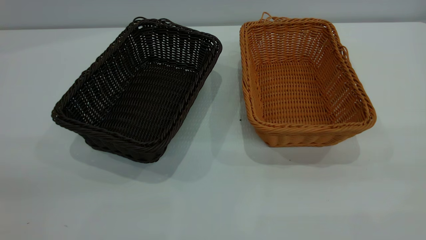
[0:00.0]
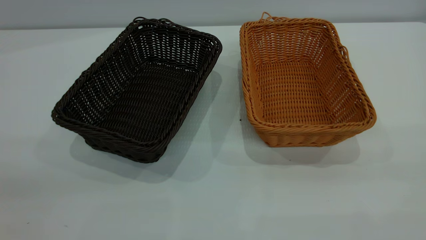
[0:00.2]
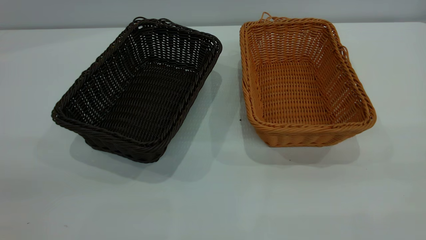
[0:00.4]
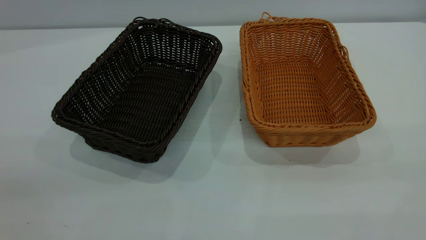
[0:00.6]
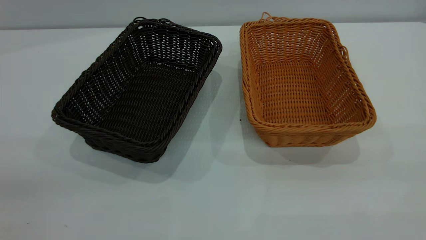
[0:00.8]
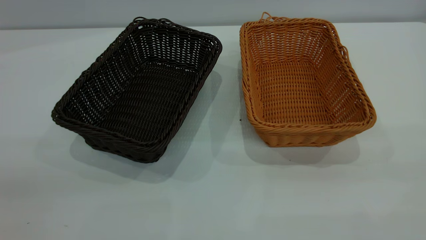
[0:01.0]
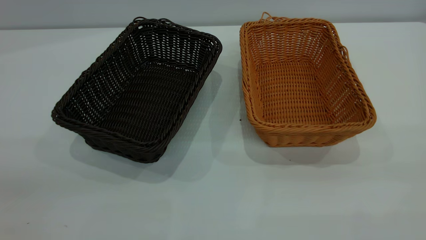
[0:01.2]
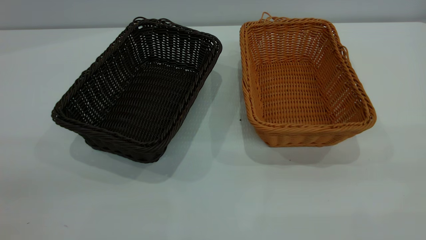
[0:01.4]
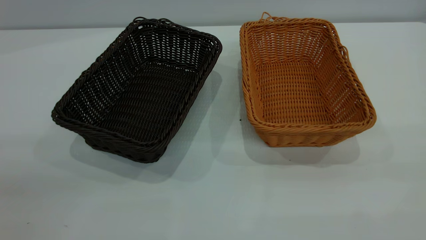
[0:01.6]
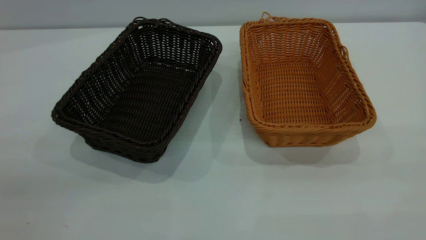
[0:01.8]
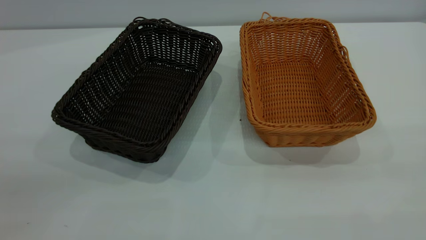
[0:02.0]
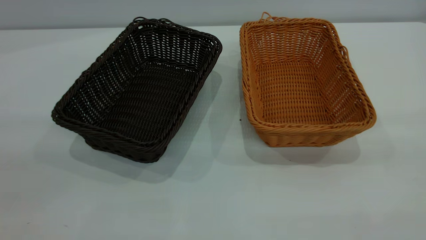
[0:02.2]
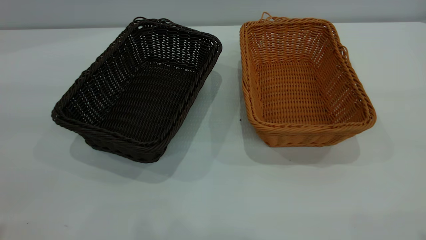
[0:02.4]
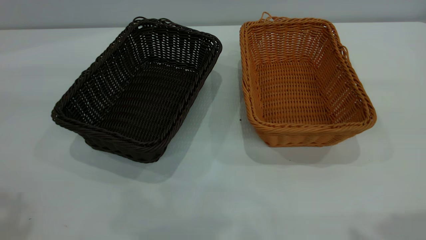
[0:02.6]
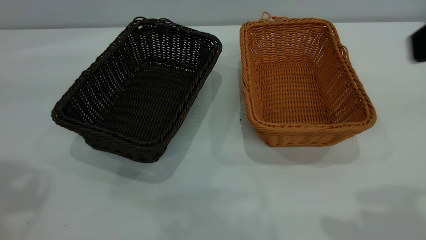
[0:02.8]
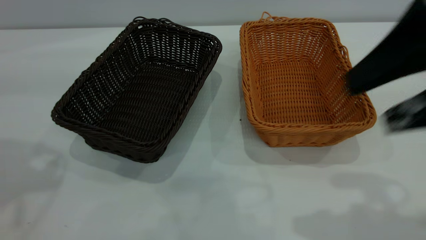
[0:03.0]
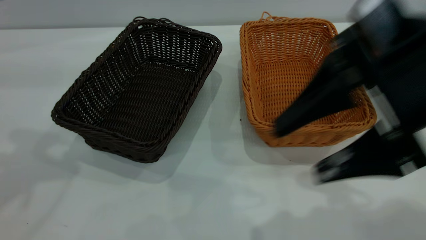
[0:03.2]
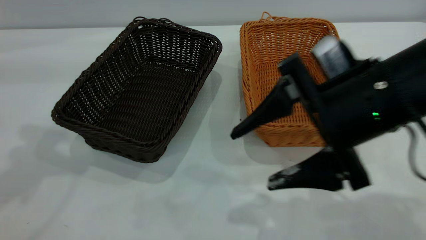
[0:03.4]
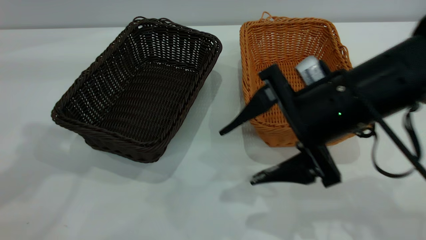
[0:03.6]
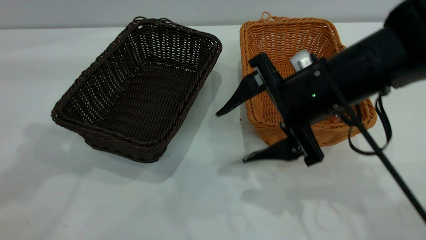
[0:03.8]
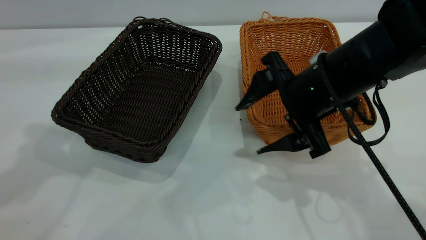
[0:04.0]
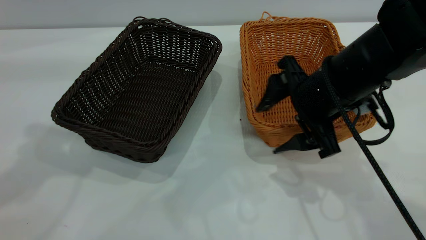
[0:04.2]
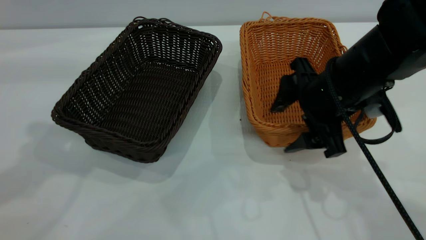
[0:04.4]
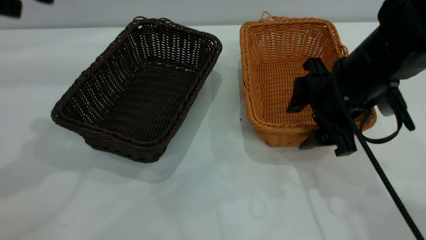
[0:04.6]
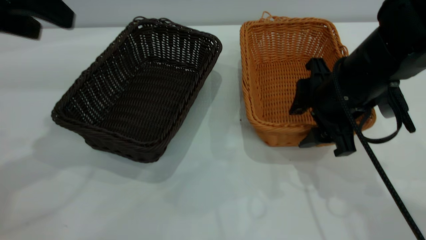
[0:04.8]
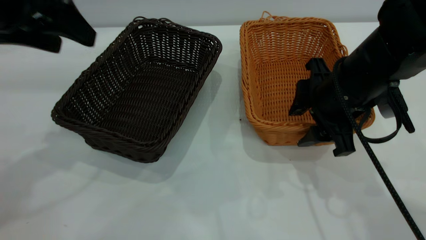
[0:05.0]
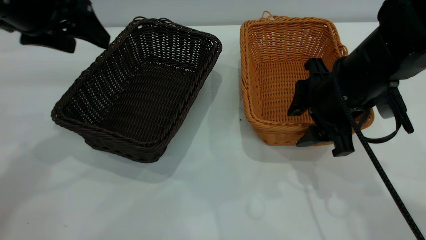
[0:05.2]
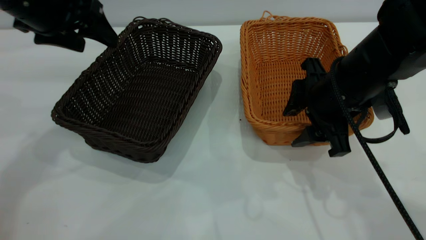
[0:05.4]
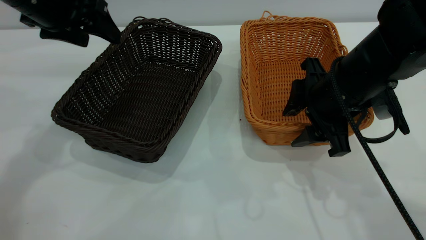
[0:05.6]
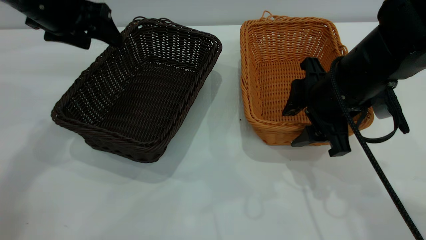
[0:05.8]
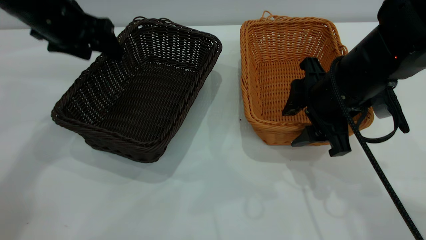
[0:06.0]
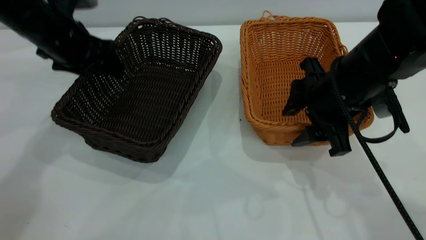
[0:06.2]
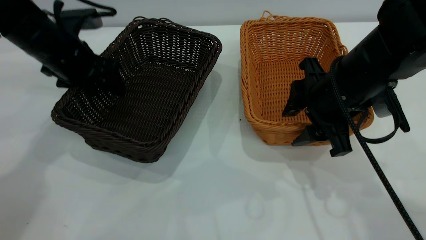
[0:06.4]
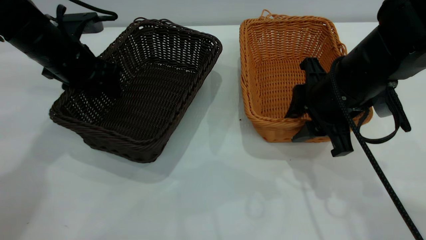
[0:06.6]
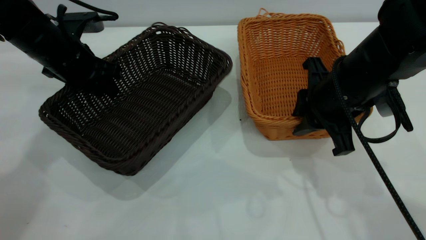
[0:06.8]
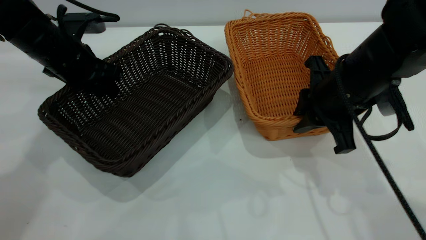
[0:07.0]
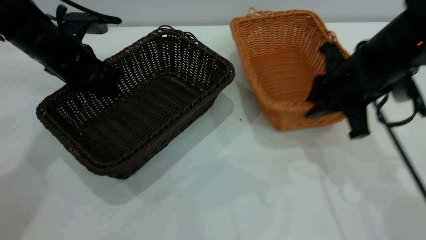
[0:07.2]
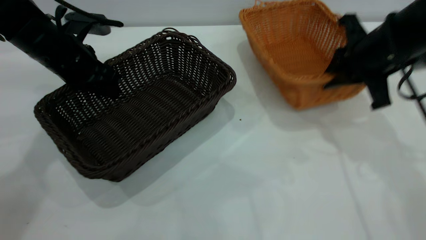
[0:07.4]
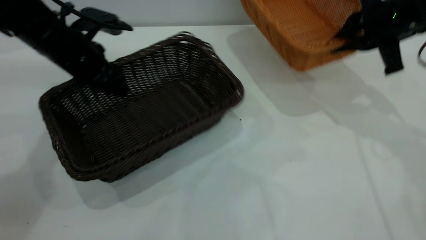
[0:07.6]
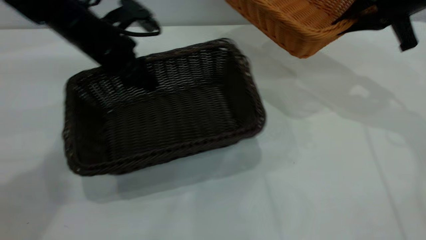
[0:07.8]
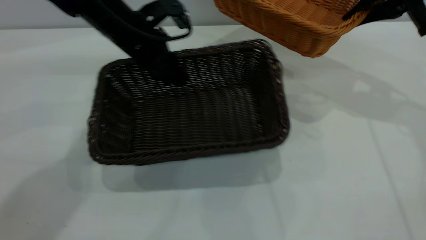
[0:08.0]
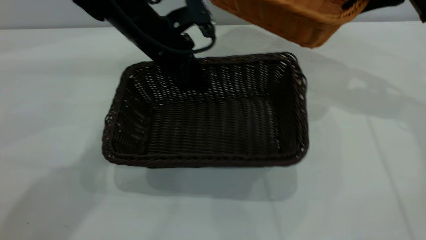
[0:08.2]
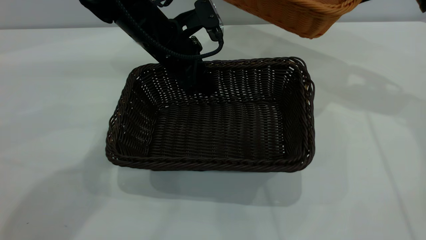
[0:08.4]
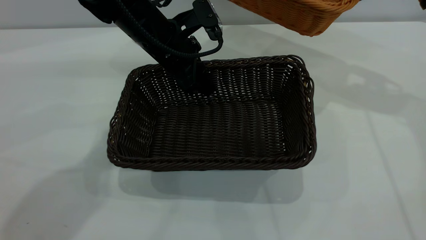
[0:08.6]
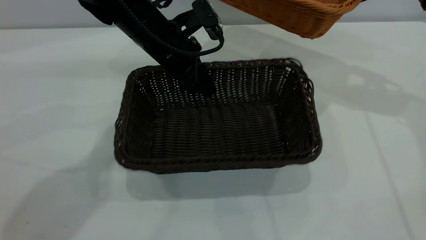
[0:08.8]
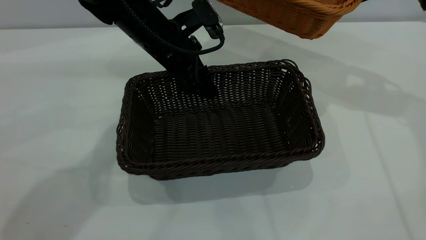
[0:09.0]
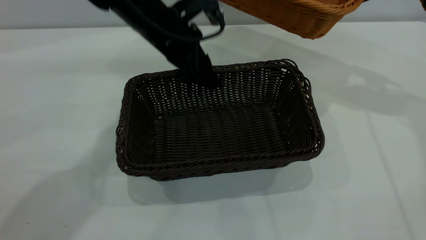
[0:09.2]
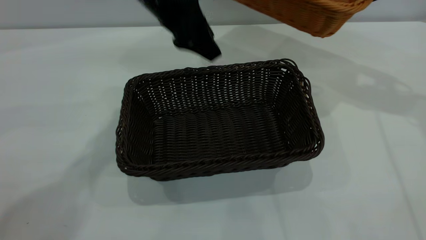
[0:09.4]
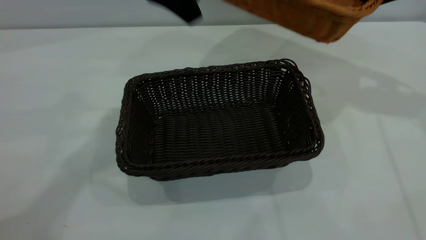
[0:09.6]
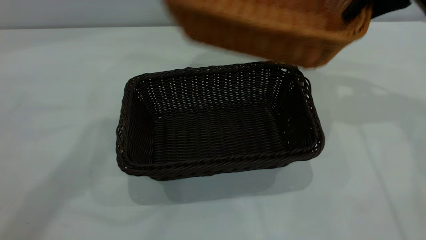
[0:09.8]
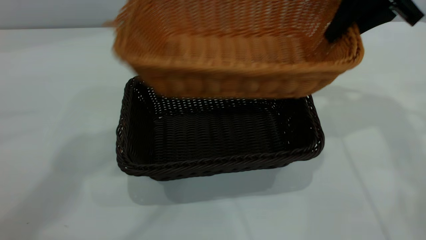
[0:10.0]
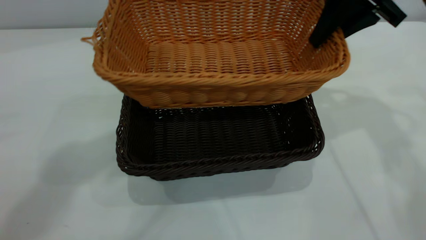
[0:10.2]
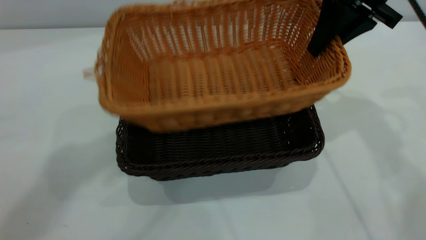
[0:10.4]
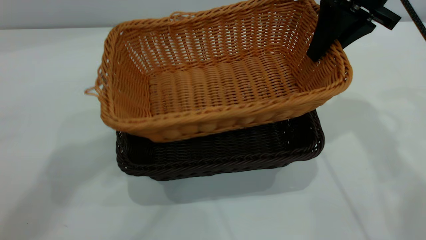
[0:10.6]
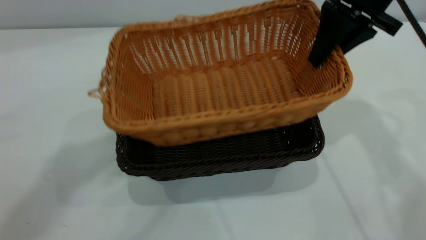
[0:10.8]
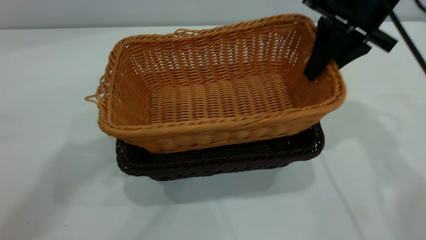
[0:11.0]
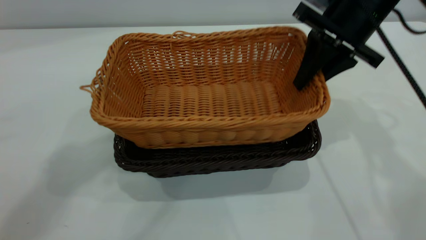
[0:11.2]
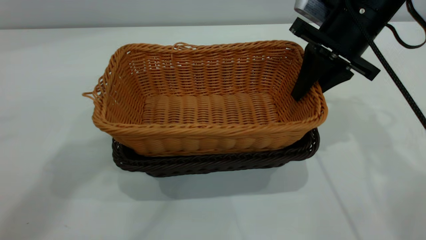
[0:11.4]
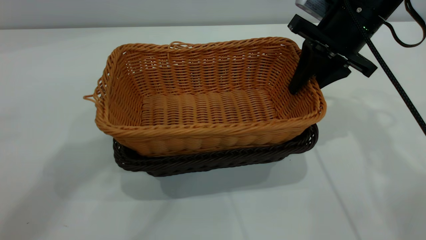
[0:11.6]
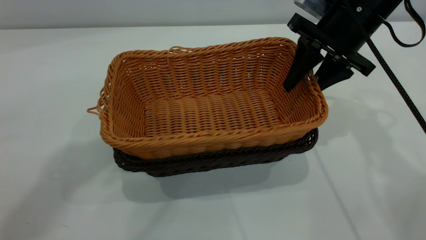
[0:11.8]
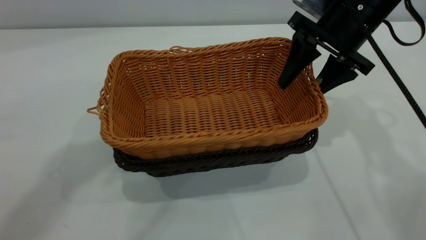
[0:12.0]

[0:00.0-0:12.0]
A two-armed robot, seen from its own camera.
Task of the whole recording: the left gripper grasp the black basket and place it in the center of the table, the right gripper grasp the brown basket and place it inside the black one.
Step, 0:00.0 to 0:07.8: Pick up the light basket with the right gripper.
Step, 0:08.0 to 0:09.4: Move the dark basket to the center of view.
0:00.0 to 0:01.6: Neither gripper changes place.
0:01.6 to 0:03.0: The right gripper moves forward and downward, approximately 20 cm, and opens up.
0:03.0 to 0:04.4: The right gripper goes some 15 cm downward and forward.
0:04.4 to 0:06.0: The left gripper moves downward and forward, approximately 20 cm.
0:06.0 to 0:07.6: The left gripper changes place by some 5 cm, and closes; the right gripper travels to the right, forward and upward by about 15 cm, and closes.
0:07.6 to 0:09.0: The left gripper moves to the right, approximately 15 cm, and opens its fingers, while the right gripper shifts approximately 5 cm upward.
0:09.0 to 0:10.4: The left gripper is displaced upward by roughly 35 cm; the right gripper is displaced to the left by some 10 cm.
0:10.4 to 0:12.0: The right gripper shifts about 5 cm downward, and opens its fingers.

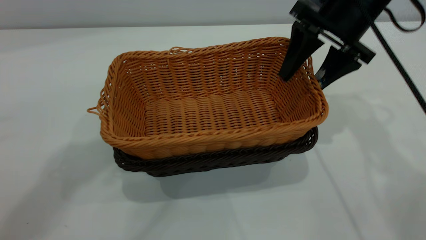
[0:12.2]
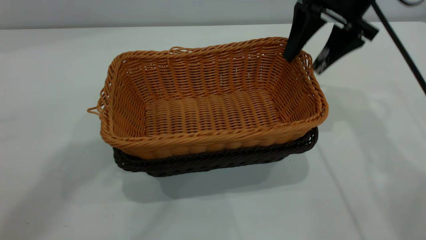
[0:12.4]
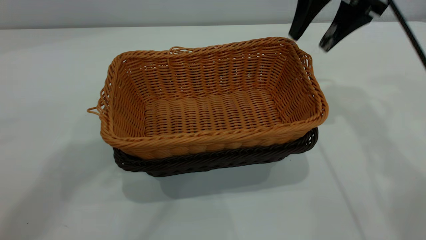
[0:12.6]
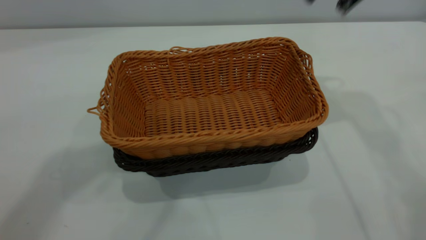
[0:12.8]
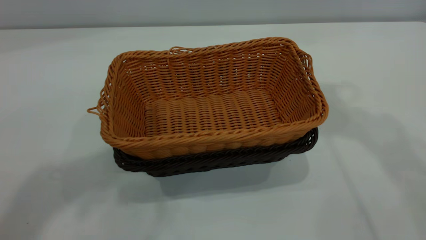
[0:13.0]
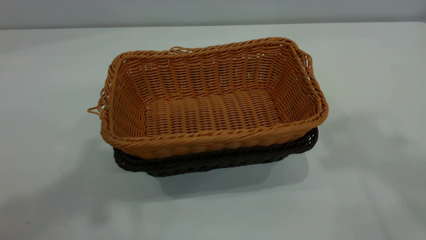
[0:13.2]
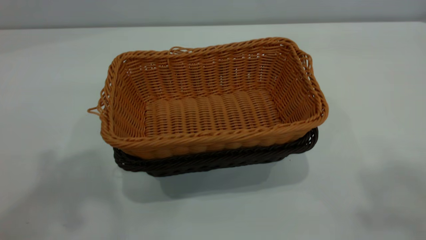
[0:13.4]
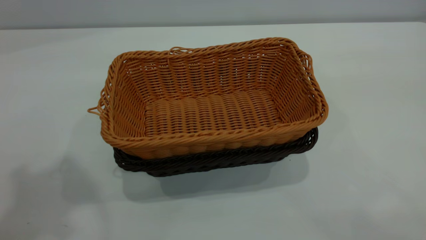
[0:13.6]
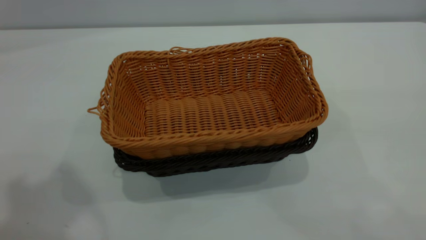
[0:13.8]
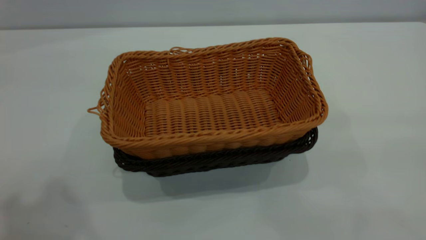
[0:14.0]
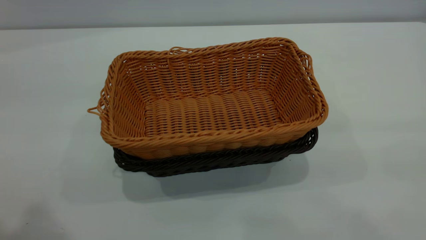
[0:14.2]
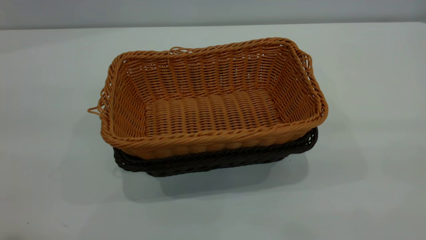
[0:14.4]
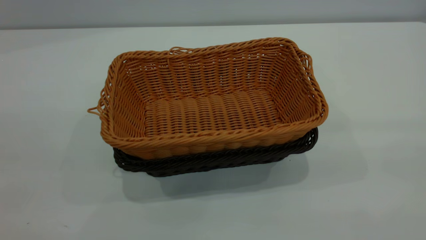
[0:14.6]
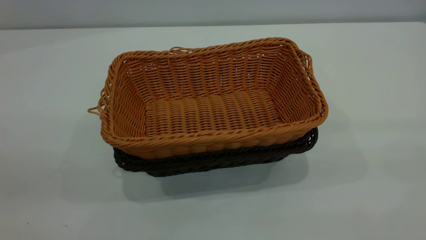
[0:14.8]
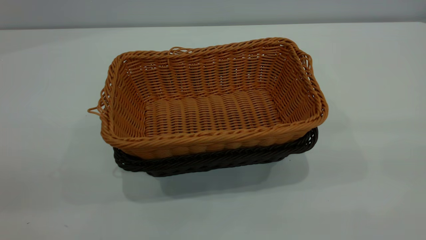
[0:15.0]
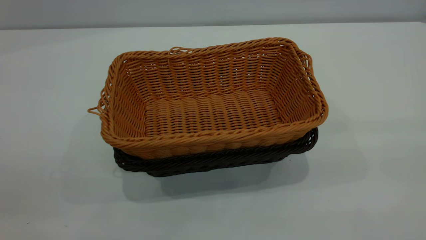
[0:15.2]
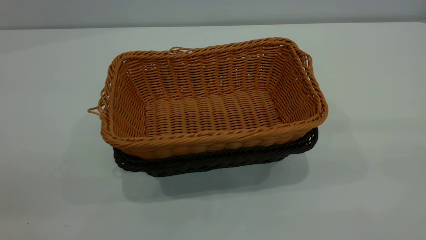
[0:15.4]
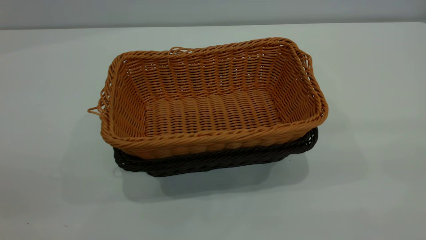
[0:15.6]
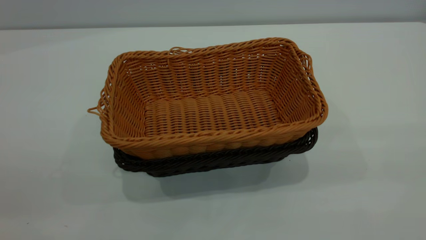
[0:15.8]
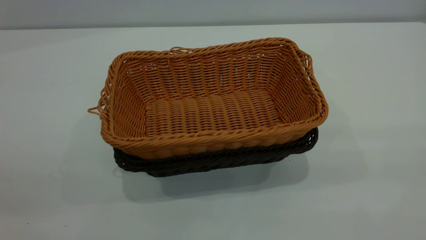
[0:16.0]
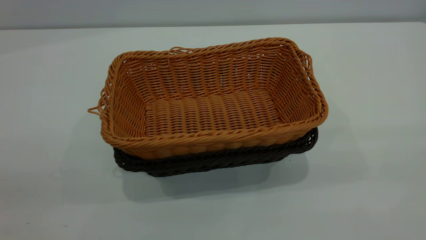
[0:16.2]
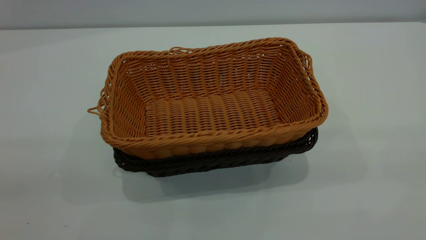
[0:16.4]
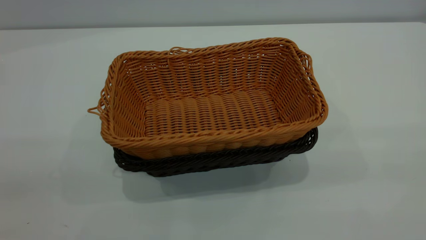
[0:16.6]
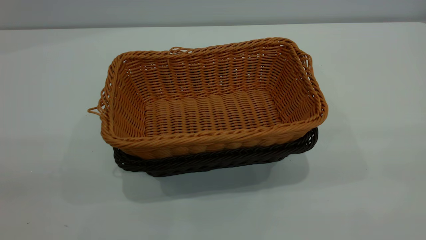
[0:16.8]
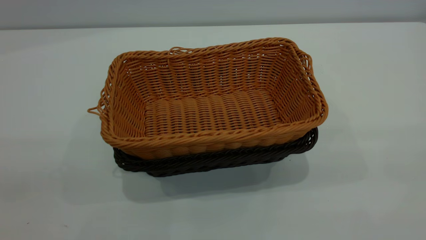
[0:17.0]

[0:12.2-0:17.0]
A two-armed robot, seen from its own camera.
Task of the whole recording: the left gripper grasp the black basket and place it in the center of the table, the right gripper grasp the brown basket and place it inside the black one.
0:12.2 to 0:13.8: The left gripper moves backward and to the left, roughly 15 cm. The right gripper is displaced backward and upward by approximately 50 cm.
